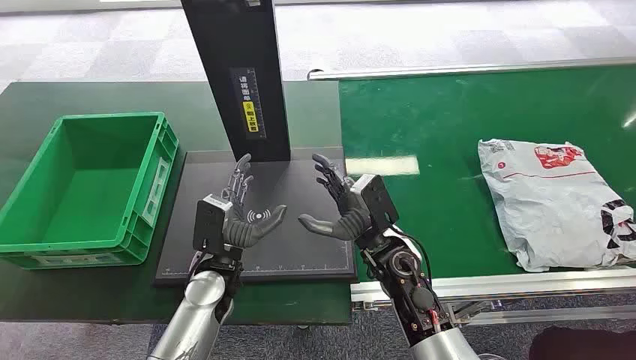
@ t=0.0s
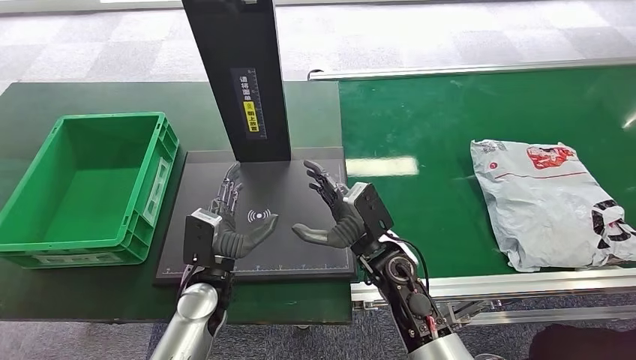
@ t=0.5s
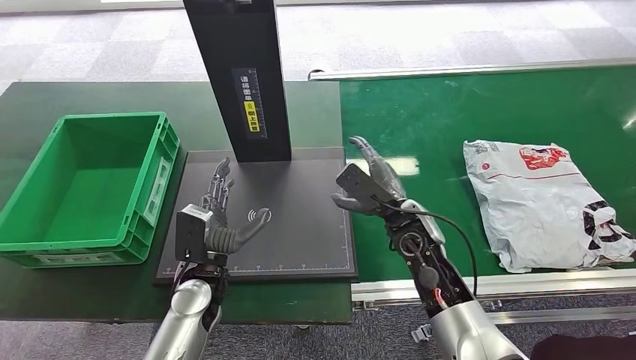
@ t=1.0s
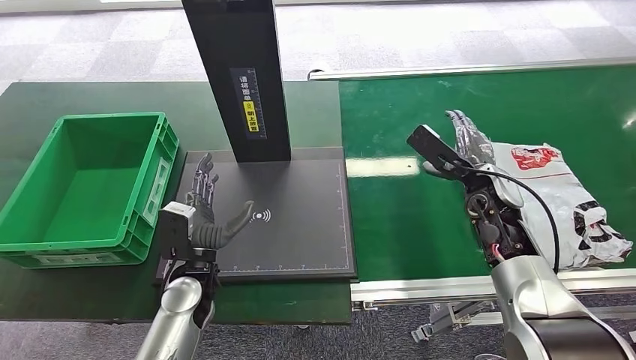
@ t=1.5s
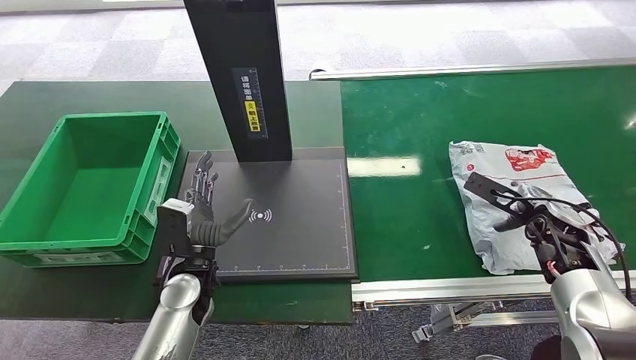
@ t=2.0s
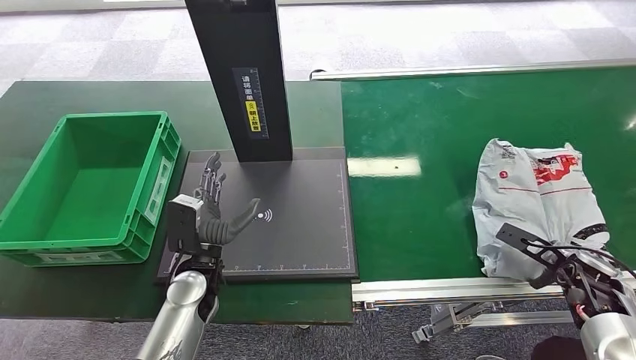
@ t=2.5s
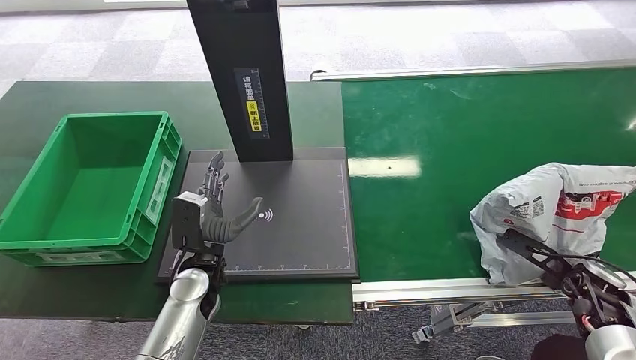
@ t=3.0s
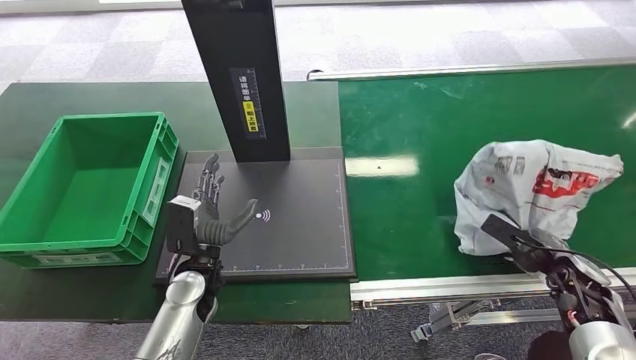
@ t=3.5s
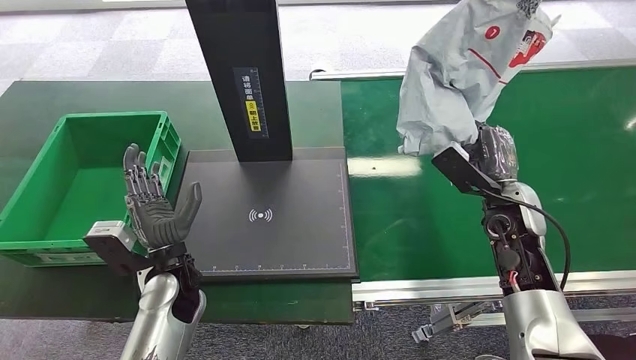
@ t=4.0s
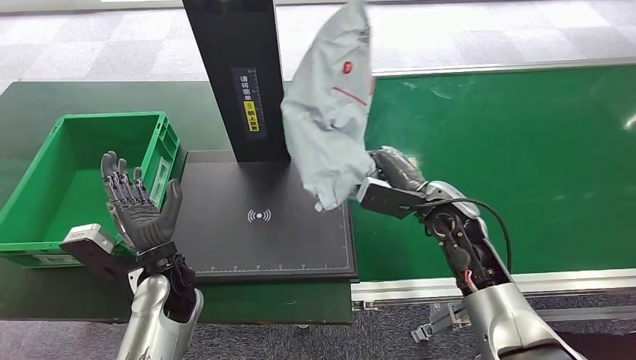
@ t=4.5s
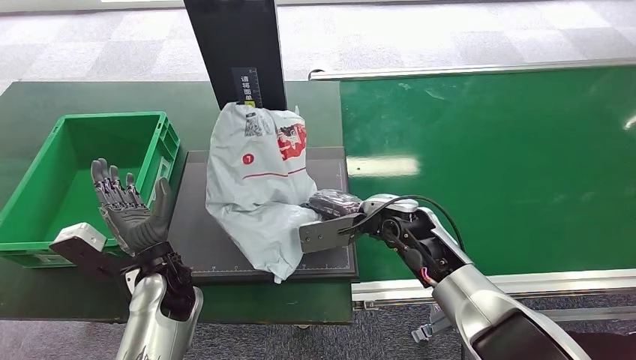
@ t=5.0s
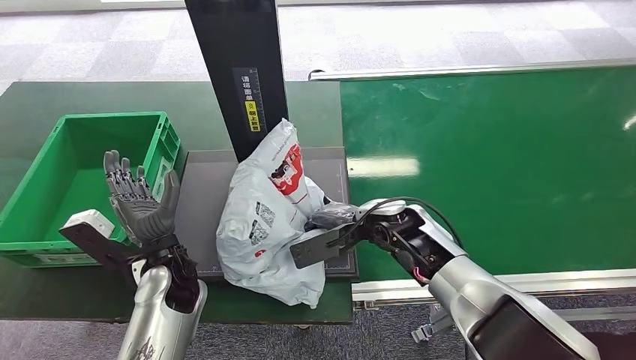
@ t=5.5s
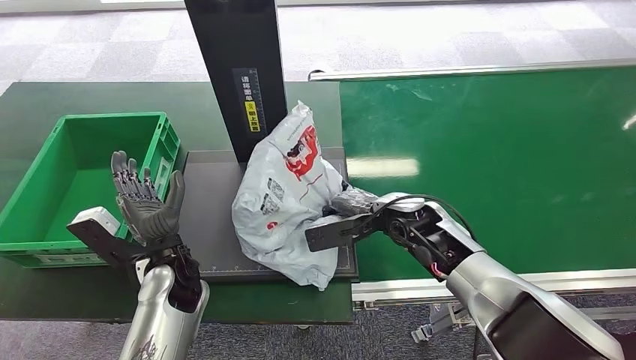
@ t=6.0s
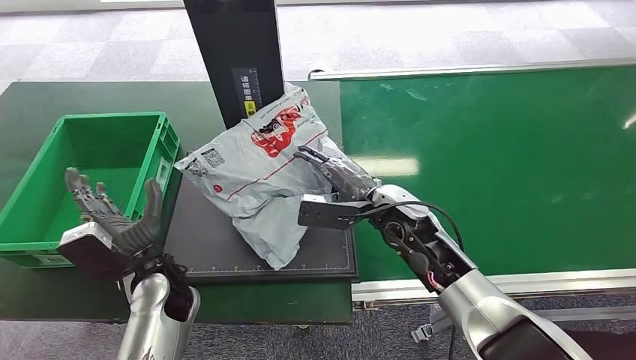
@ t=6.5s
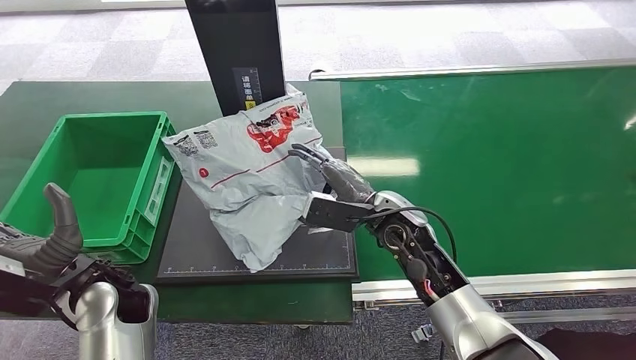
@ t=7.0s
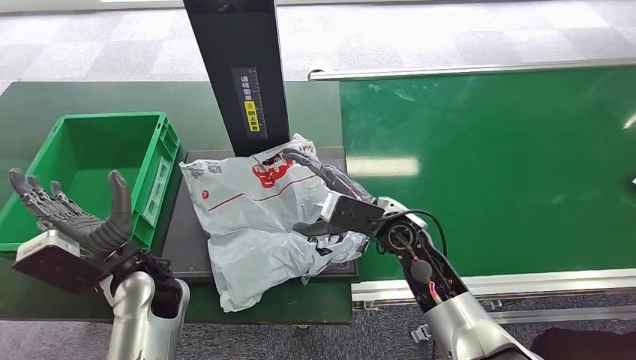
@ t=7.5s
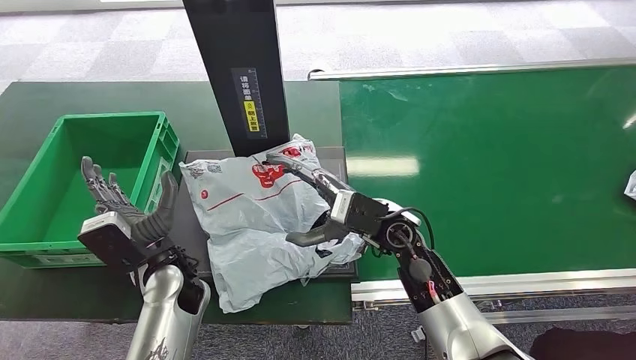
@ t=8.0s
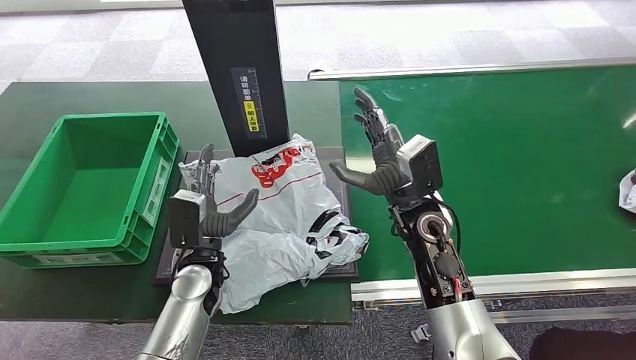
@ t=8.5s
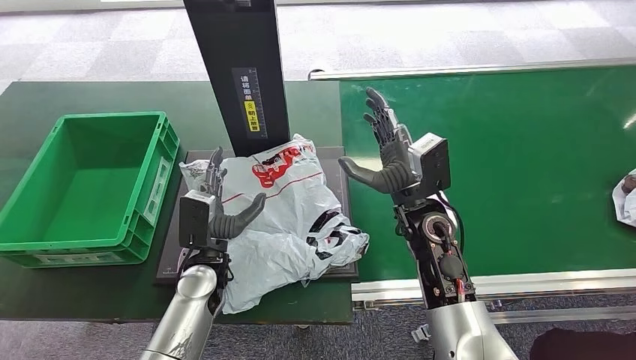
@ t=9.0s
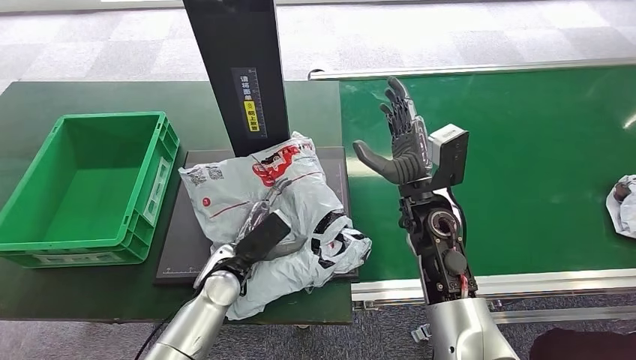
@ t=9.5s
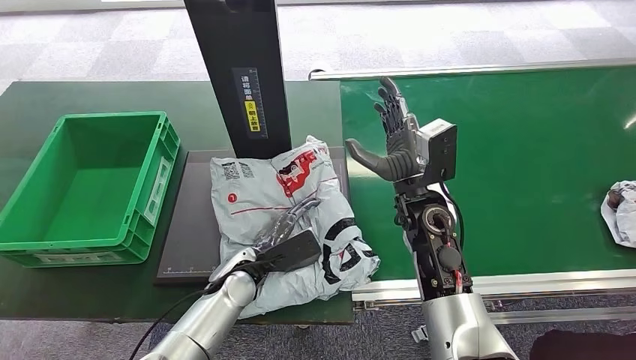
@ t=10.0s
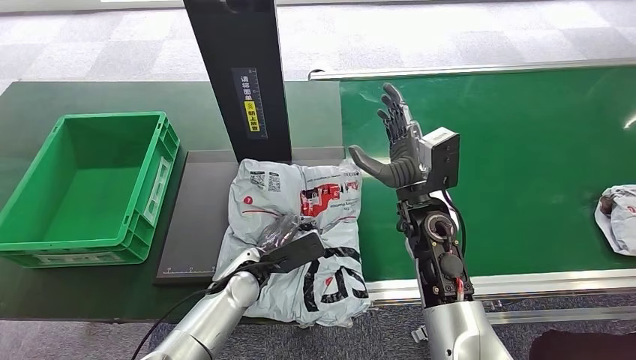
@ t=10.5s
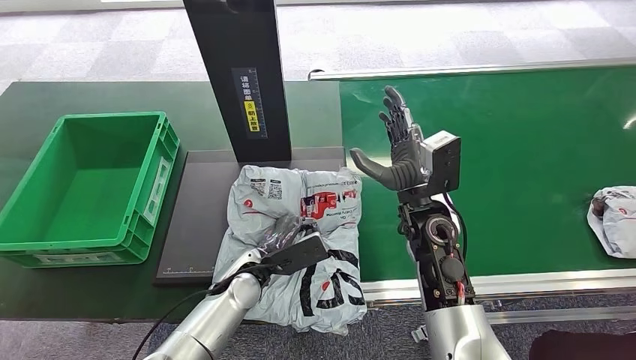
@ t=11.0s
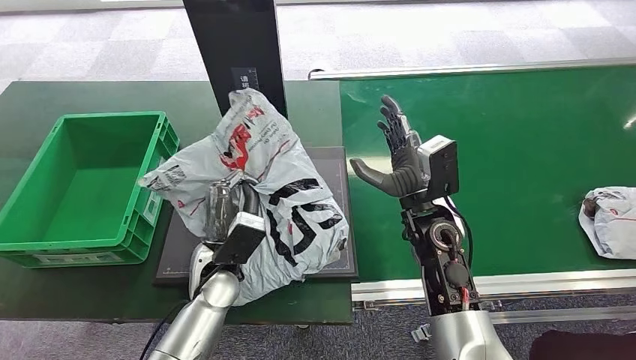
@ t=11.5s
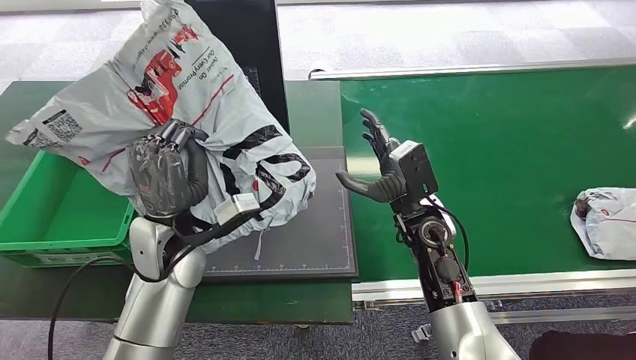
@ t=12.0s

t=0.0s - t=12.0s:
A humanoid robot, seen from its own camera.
Step, t=0.0s - t=4.0s: Pick up the package from the conveyor belt.
Step, t=4.5s - t=8.0s: Place the package onto the inbound machine.
Step, t=8.5s - t=11.5s: Pick up the package from the inbound machine.

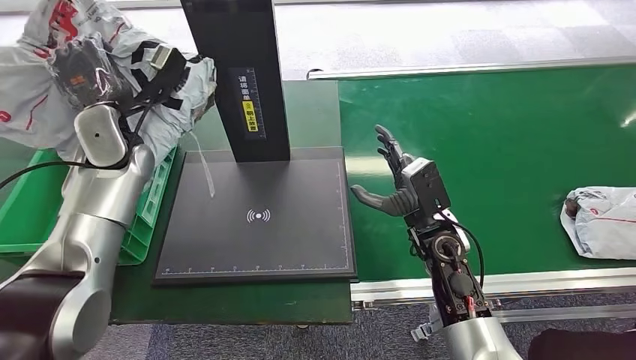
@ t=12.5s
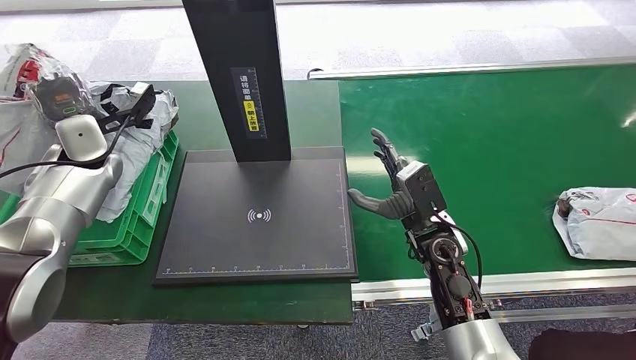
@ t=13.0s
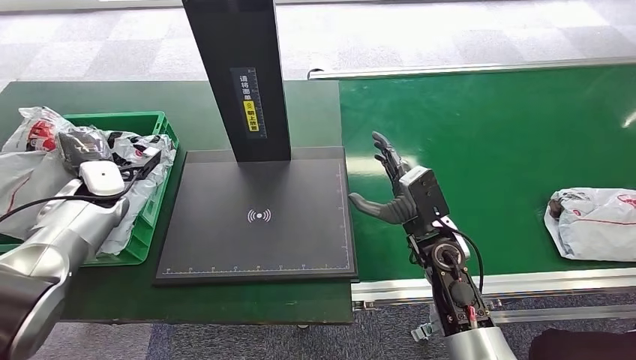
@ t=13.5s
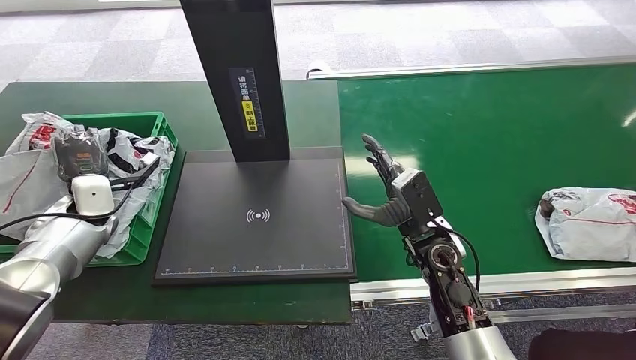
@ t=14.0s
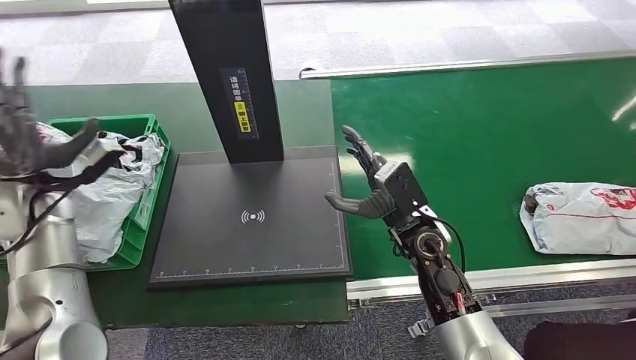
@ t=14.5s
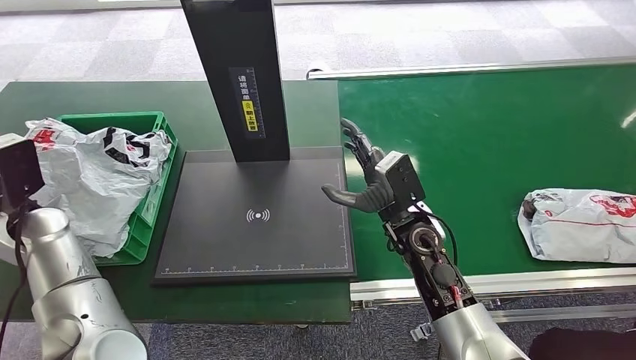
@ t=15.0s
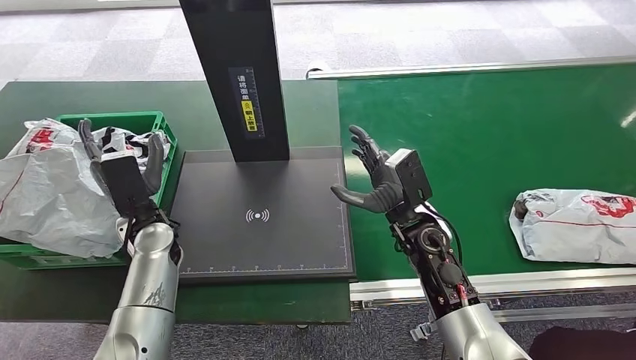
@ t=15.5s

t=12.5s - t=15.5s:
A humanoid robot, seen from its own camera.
Step, t=12.5s - t=15.5s: Place the package into the parcel locker.
t=14.0s - t=15.5s: The left hand travels to the right by roughly 15 cm.

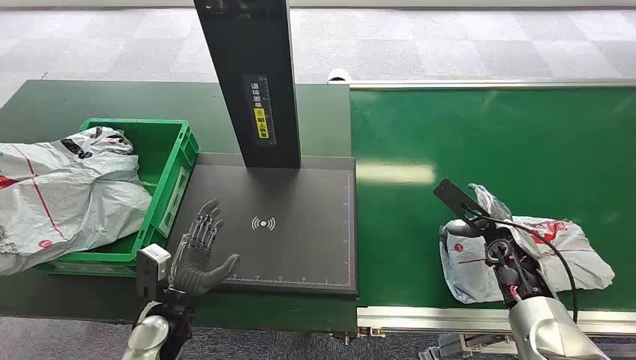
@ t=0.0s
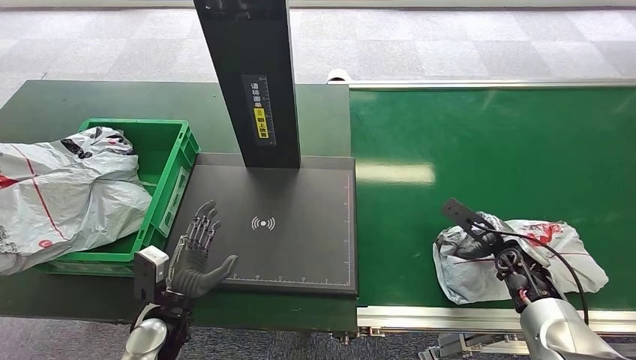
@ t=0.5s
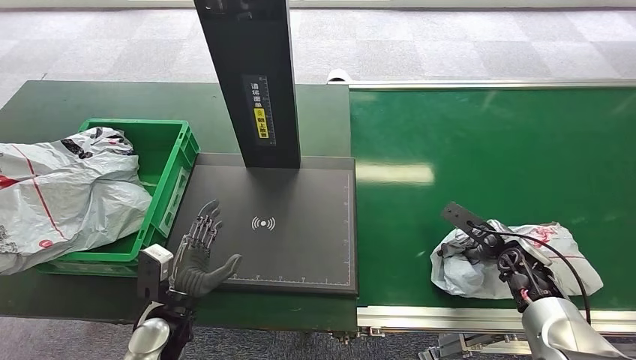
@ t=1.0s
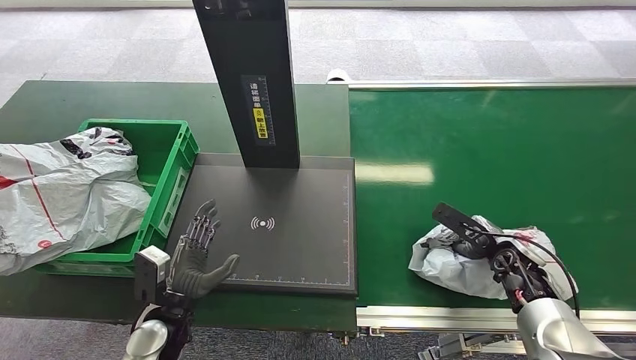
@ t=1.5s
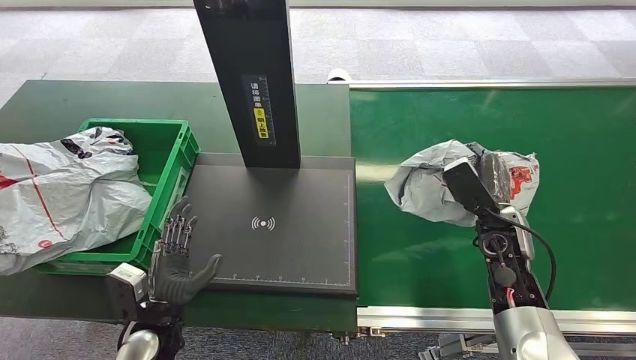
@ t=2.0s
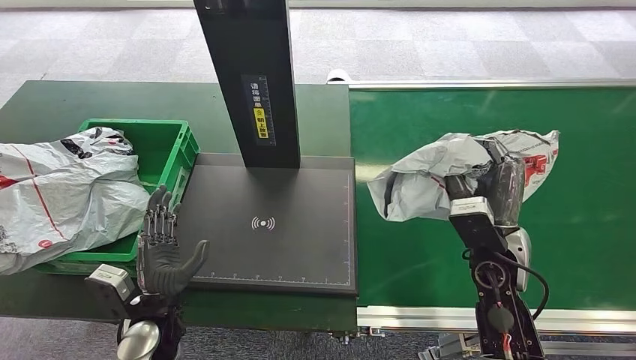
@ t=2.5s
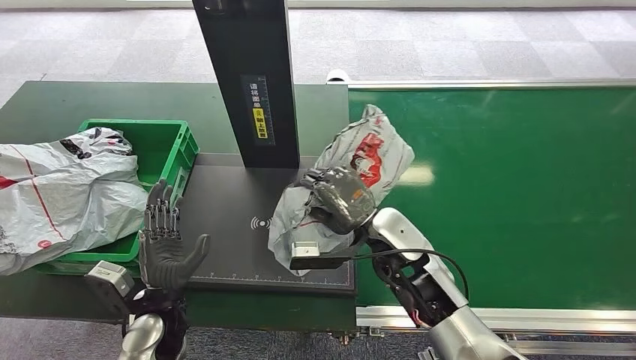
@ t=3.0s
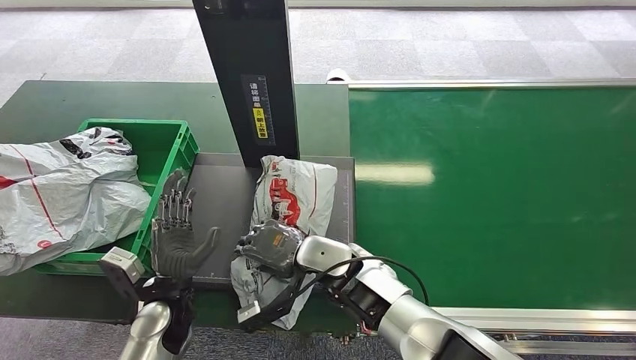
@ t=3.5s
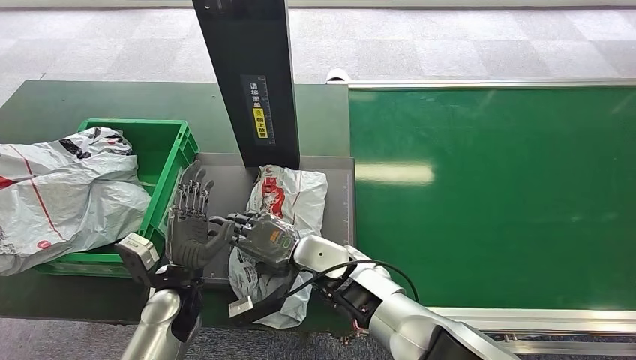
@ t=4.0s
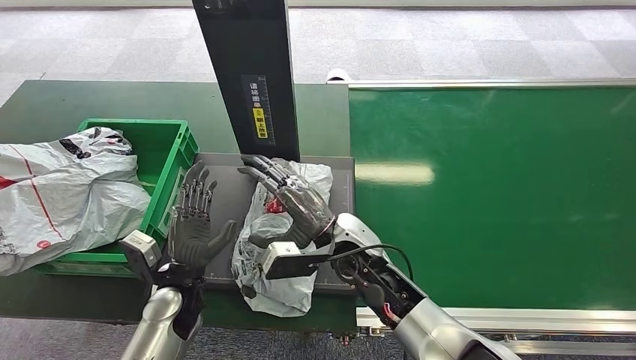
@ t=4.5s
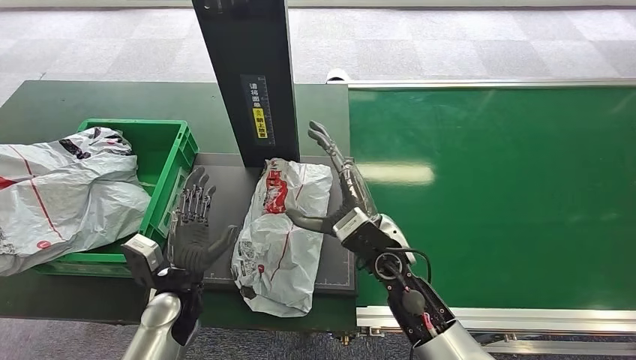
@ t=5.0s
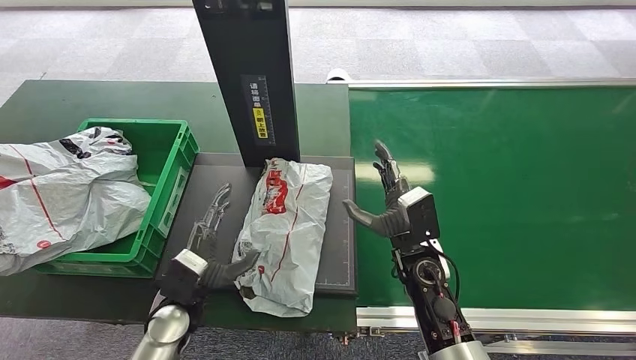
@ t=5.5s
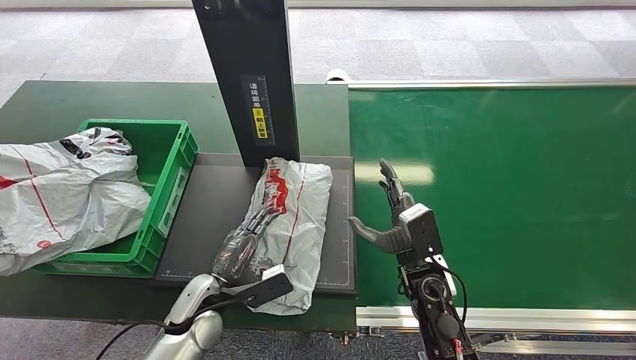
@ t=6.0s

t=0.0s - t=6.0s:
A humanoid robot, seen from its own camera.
Step, t=0.0s - t=2.0s: Pick up the package from the conveyor belt.
Step, t=2.5s - t=4.5s: Place the package onto the inbound machine.
t=2.0s - t=4.0s: The right hand goes about 30 cm to the left, while the left hand travels forward by about 5 cm.
t=4.0s - t=6.0s: The right hand goes about 15 cm to the right.
